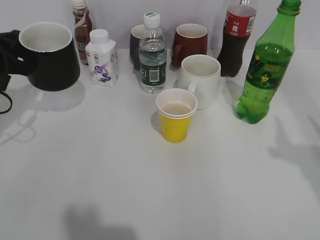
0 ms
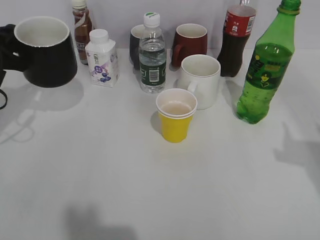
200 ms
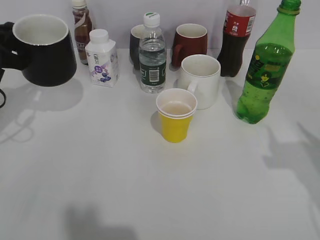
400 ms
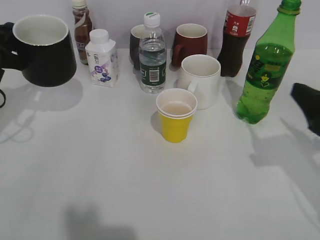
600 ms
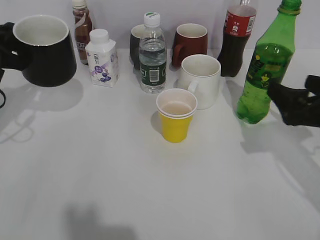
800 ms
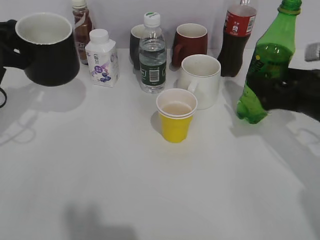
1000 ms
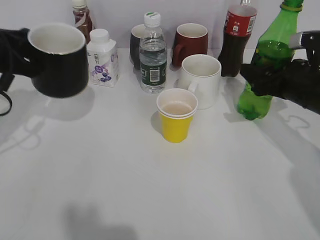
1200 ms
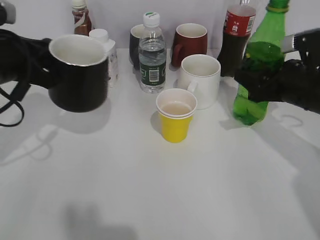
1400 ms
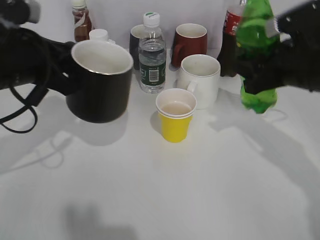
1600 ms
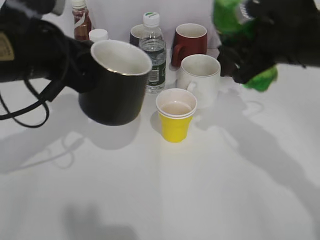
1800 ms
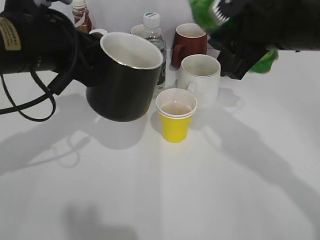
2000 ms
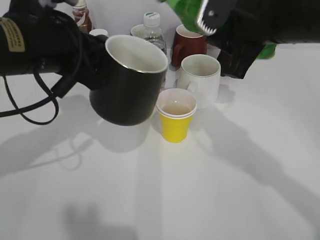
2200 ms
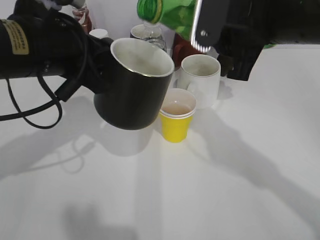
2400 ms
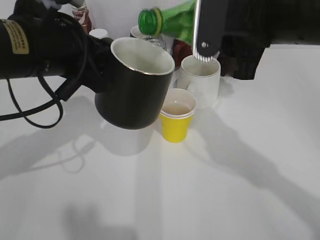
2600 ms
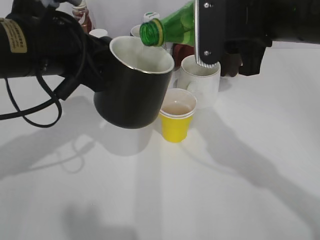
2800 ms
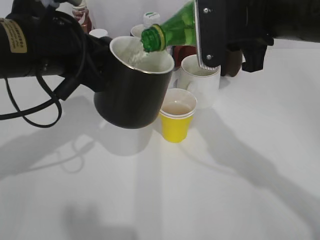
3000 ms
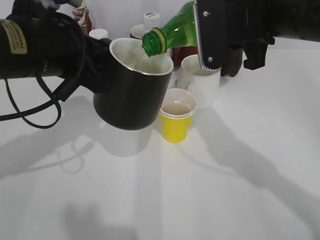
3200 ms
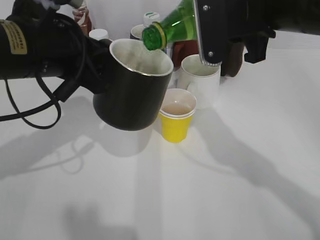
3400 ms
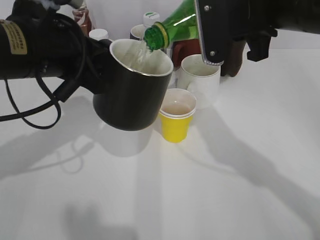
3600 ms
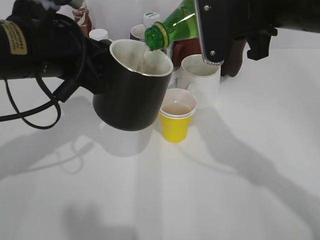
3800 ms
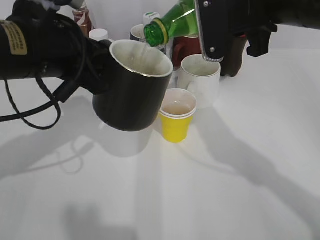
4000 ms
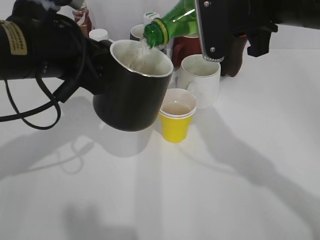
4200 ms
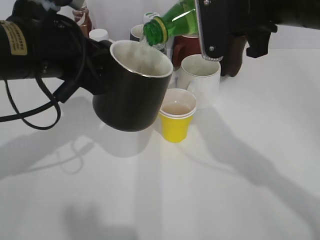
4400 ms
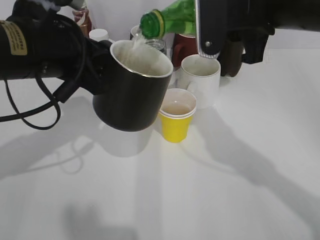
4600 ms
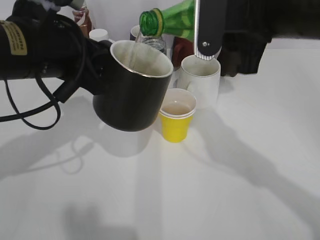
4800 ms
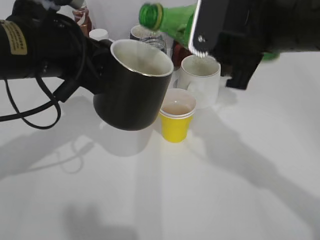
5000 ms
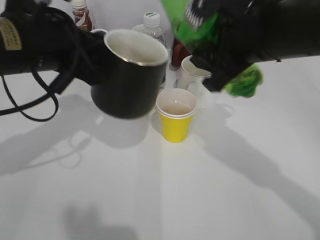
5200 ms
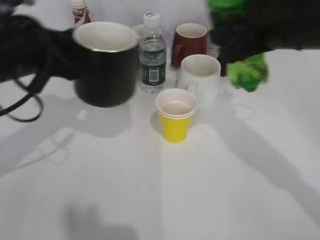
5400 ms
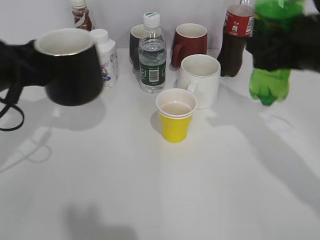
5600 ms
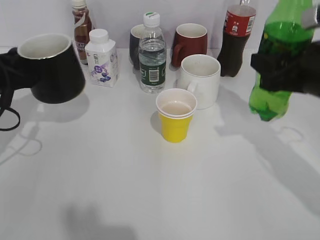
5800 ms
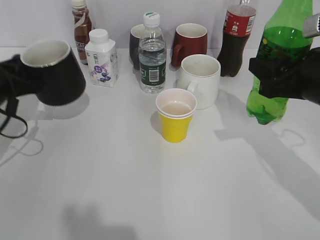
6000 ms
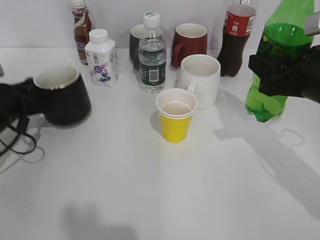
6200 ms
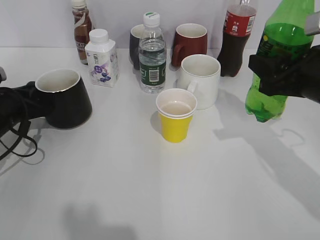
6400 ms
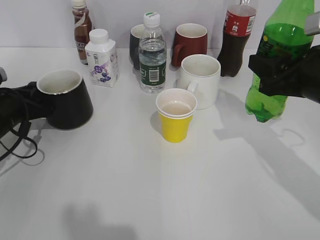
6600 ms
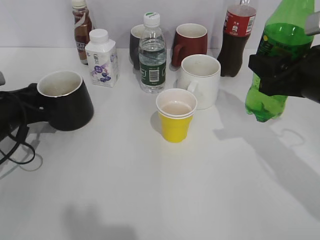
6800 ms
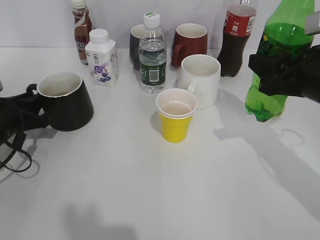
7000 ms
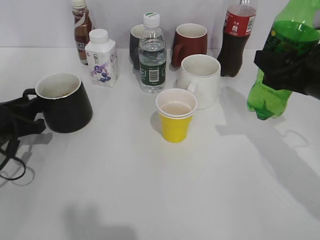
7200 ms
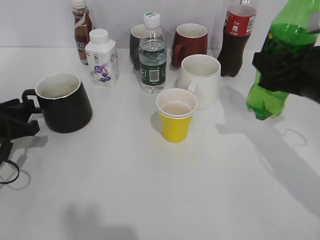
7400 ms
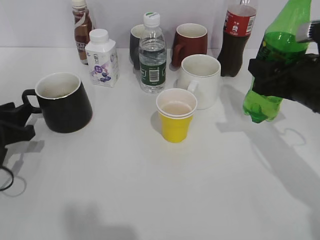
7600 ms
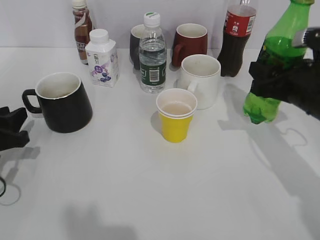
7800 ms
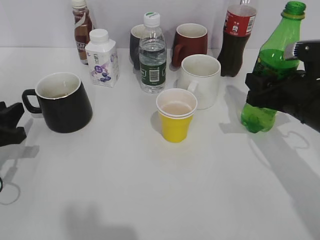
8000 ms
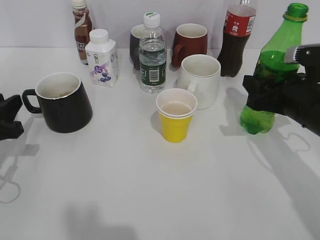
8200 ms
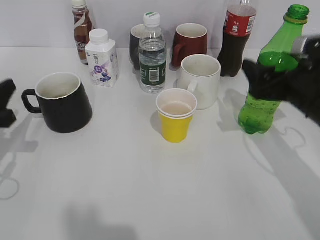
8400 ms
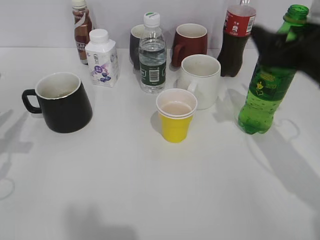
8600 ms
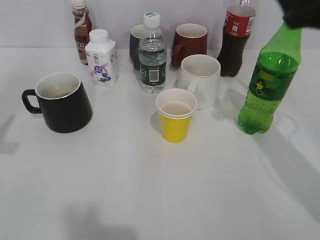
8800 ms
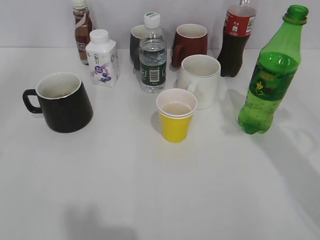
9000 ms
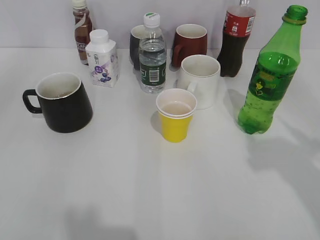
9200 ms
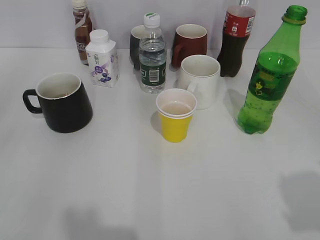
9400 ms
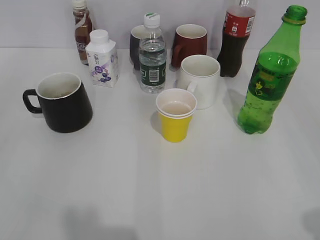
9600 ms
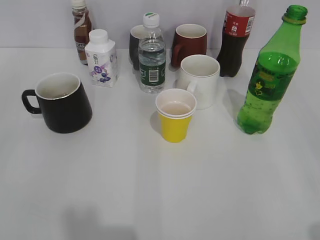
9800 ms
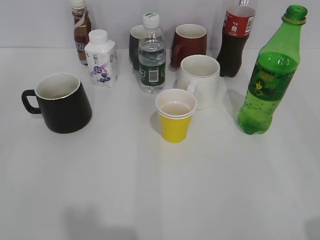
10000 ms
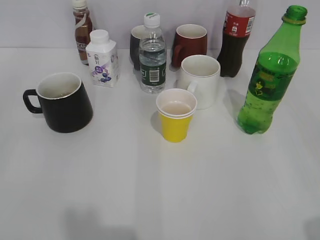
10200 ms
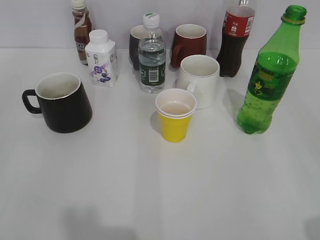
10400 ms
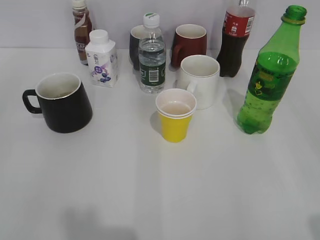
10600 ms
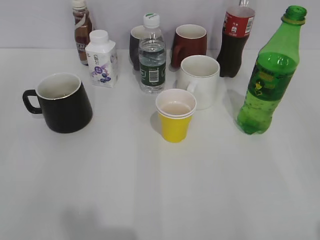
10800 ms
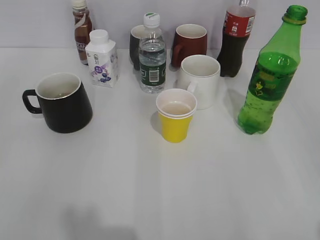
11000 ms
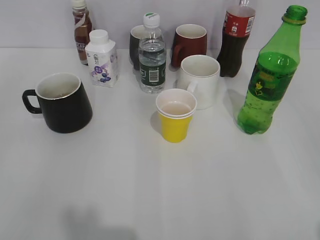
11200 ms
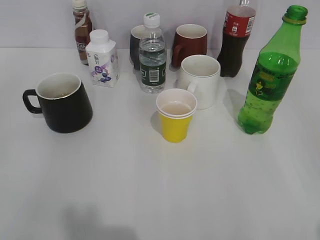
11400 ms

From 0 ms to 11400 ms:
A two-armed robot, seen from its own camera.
Step, from 0 ms to 1200 ms: Grasp the bottle with sprite with right gripper.
Step, from 1400 ms to 5000 ms: Pour the sprite from bottle to cup with right gripper.
Step, from 5200 ms to 6800 ms: Place the black cup on the table with left gripper.
Step, from 7200 ms to 8200 ms: Place the sprite bottle on the table with right gripper.
From 0 ms to 1400 ms: The right gripper goes about 25 cm forward and downward, and closes. Meanwhile the left gripper is displaced to the right by approximately 5 cm.
From 1400 ms to 2800 ms: The left gripper shifts approximately 10 cm to the right, while the right gripper goes approximately 15 cm upward and to the left.
From 2800 ms to 4200 ms: The grippers move only a little.
From 4200 ms to 5600 ms: The right gripper heads to the right and downward, covering roughly 10 cm; the left gripper travels to the left and downward by some 10 cm.
From 5600 ms to 7200 ms: The left gripper goes approximately 10 cm downward, and opens up.
From 7200 ms to 8600 ms: The right gripper opens up. The left gripper shifts about 10 cm upward and backward.
From 8600 ms to 10000 ms: The right gripper travels backward by approximately 25 cm. The left gripper heads backward and upward, covering roughly 20 cm, and opens its fingers.
From 10000 ms to 11400 ms: The grippers stay close to where they were, moving slightly.
